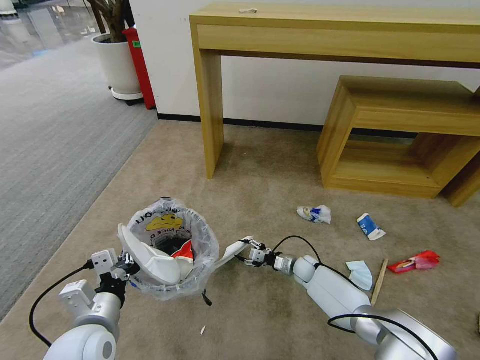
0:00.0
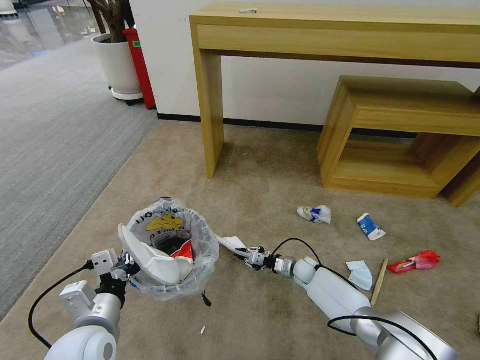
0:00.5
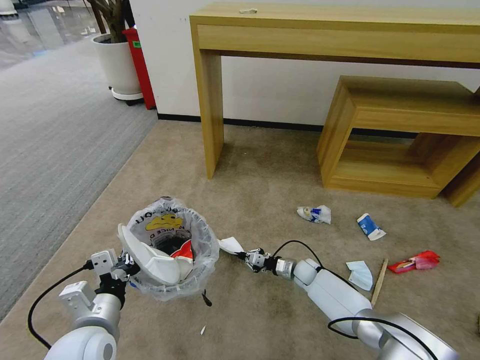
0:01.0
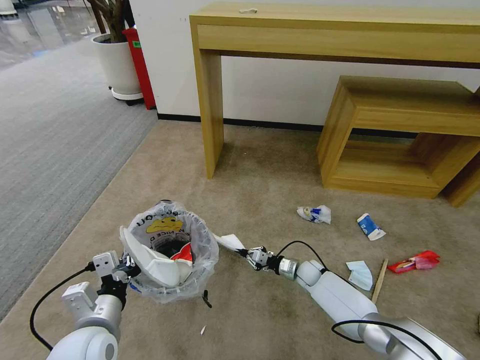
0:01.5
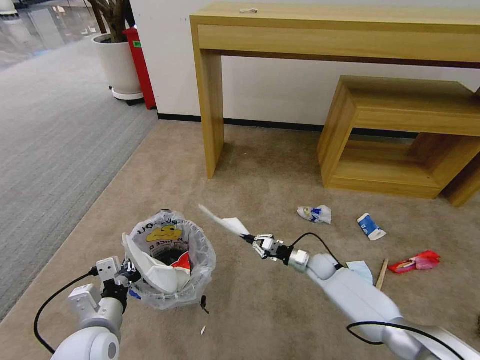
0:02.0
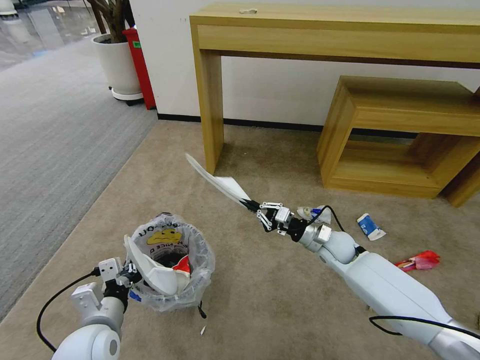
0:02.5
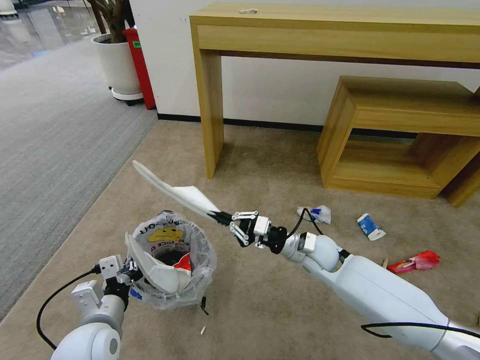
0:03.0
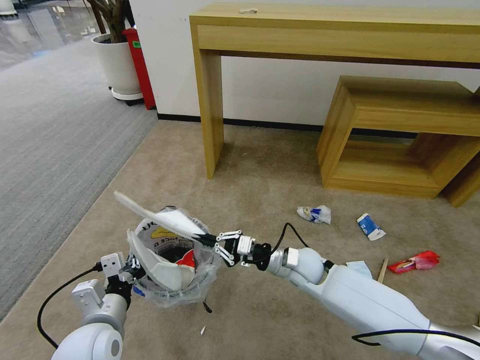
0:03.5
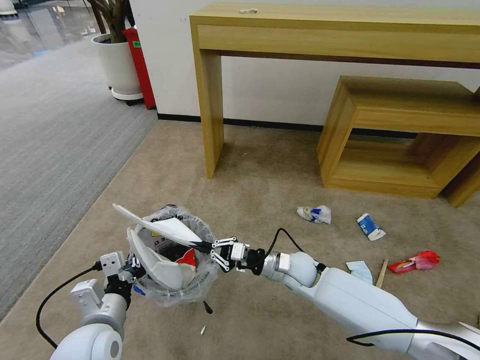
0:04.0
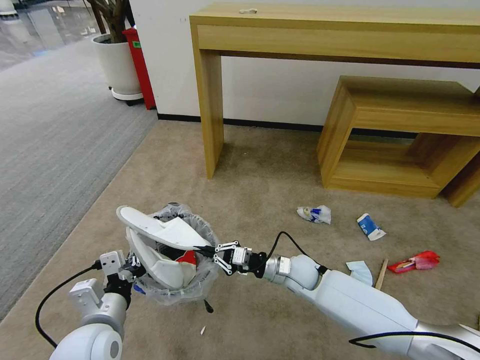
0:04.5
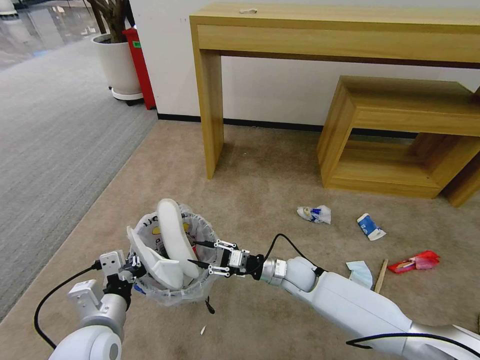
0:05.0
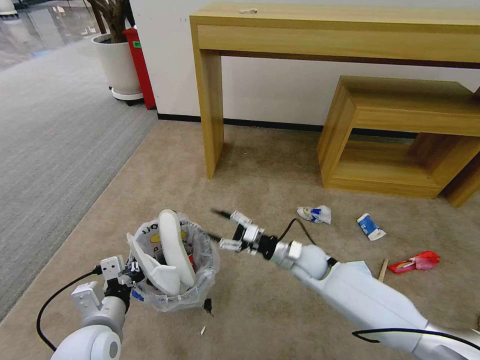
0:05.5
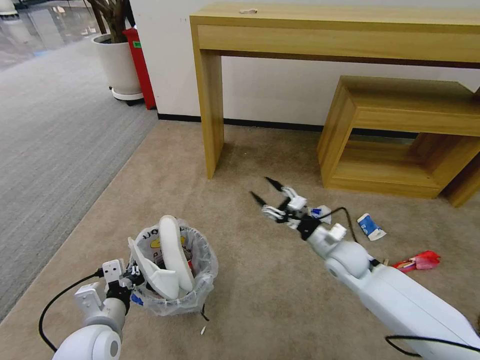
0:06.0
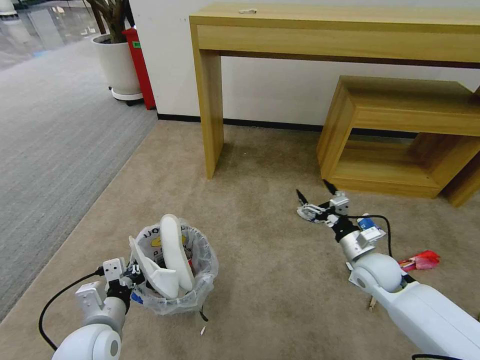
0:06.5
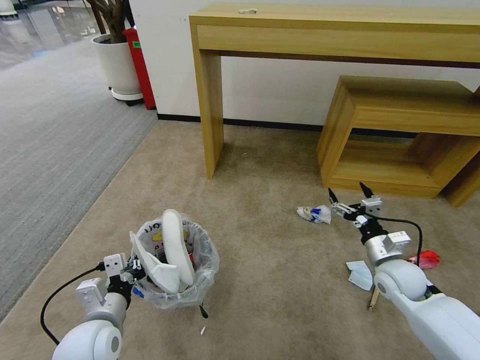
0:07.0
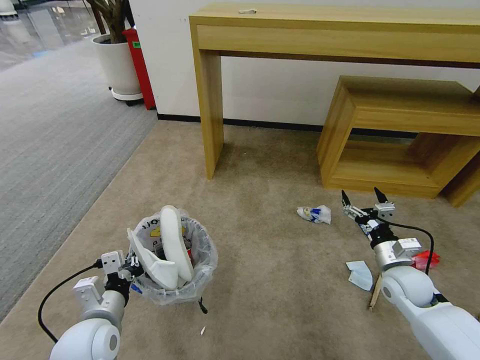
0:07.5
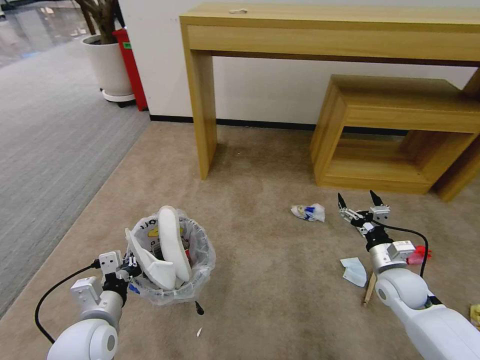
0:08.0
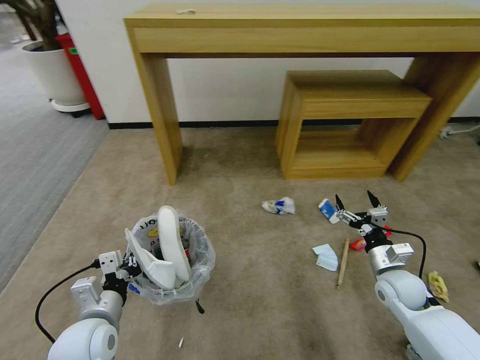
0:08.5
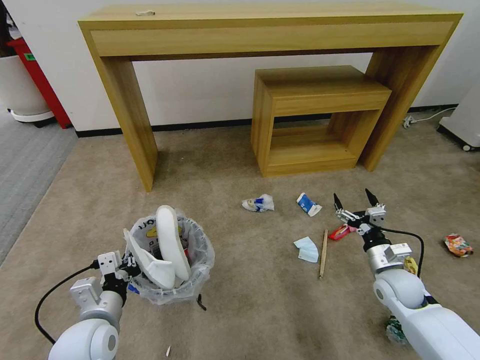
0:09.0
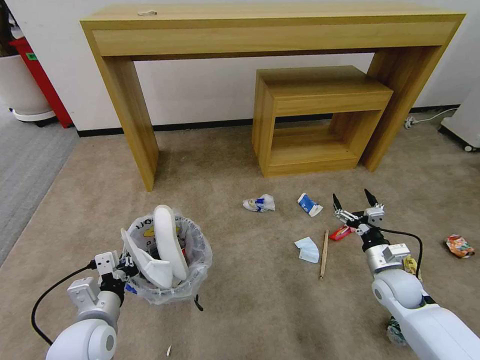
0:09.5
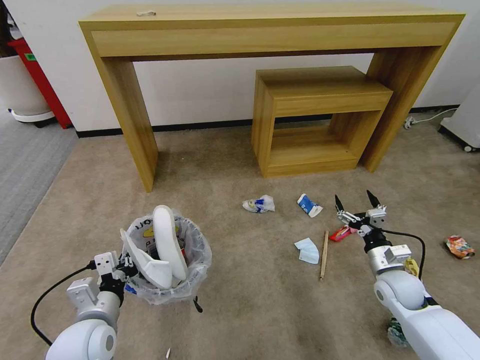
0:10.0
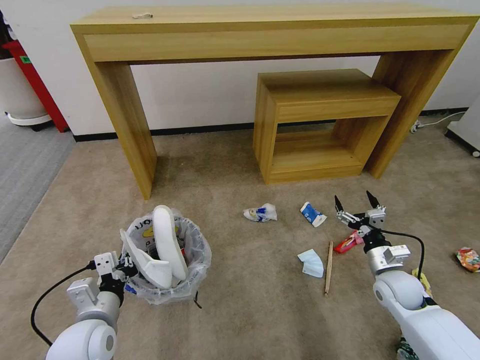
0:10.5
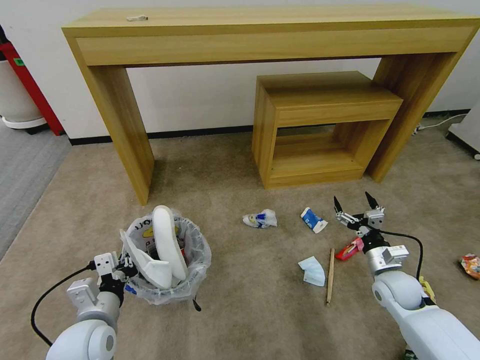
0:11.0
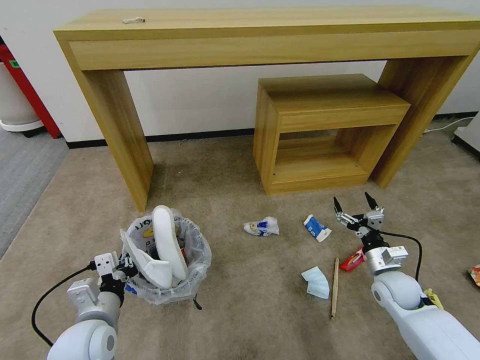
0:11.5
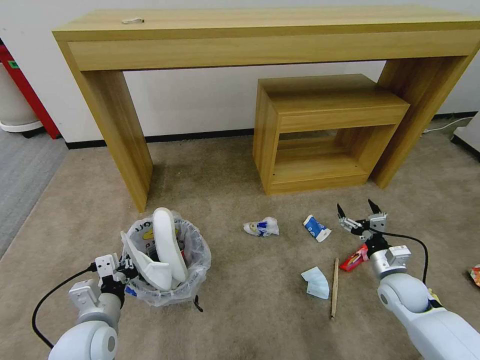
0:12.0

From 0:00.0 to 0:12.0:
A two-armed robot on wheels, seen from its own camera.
Task of the whole recording: Pick up the trash bin and place the garbage on the floor into it.
From 0:00.0 to 0:02.0: The right gripper ends up roughly 5 cm from where it was, and closes.
From 0:02.0 to 0:04.0: The right gripper goes approximately 15 cm to the left, upward and backward.
From 0:04.0 to 0:06.0: The right gripper heads to the right, covering some 10 cm, and opens up.
From 0:06.0 to 0:08.0: The right gripper moves to the right and backward, some 10 cm.

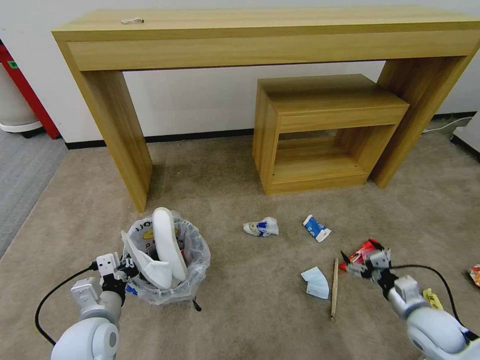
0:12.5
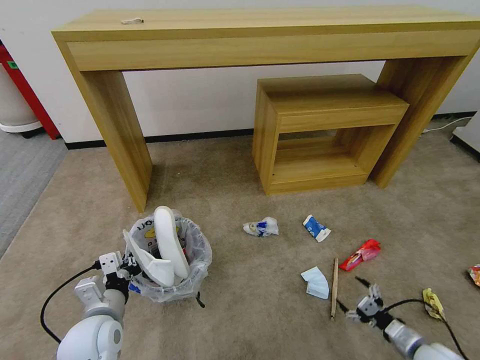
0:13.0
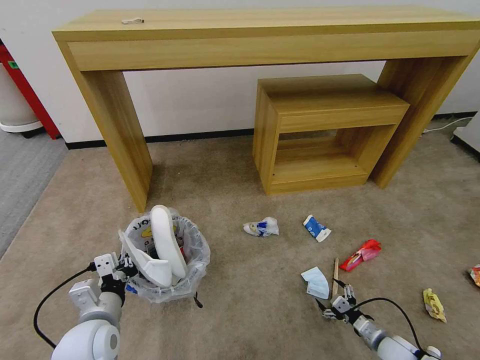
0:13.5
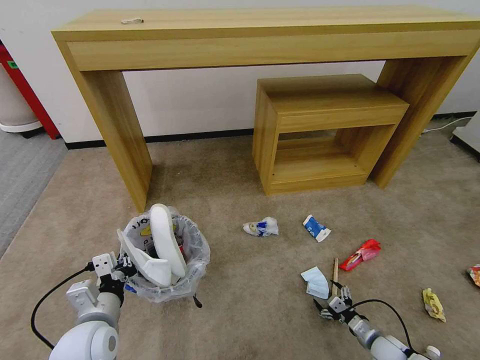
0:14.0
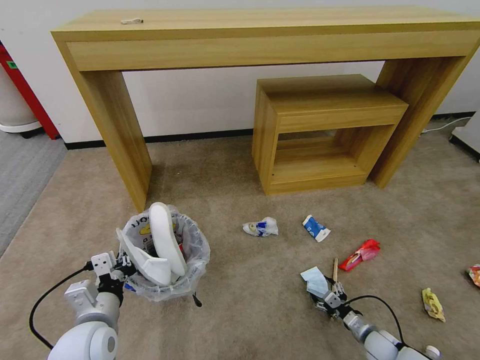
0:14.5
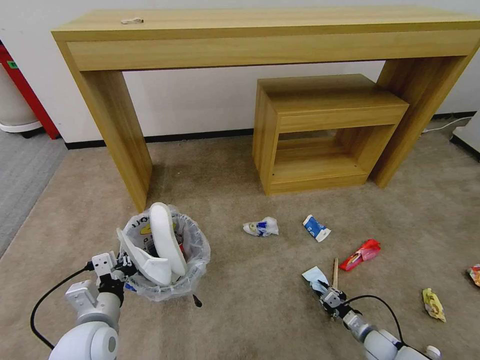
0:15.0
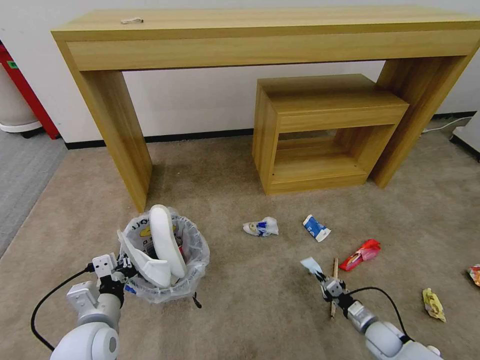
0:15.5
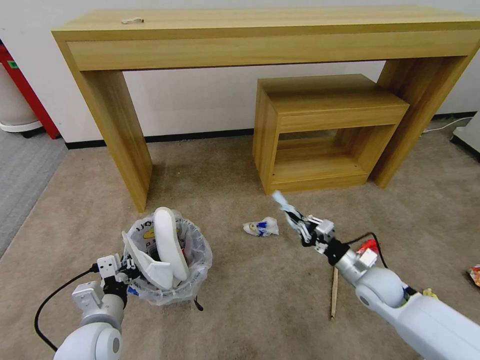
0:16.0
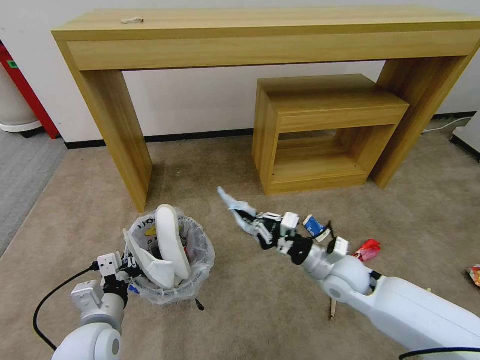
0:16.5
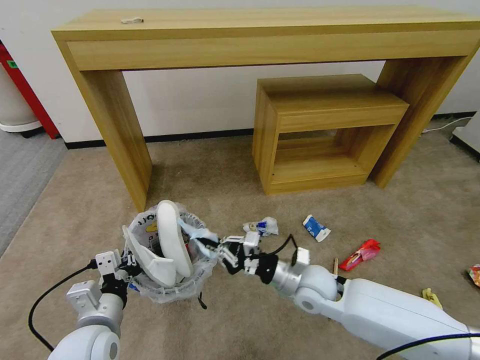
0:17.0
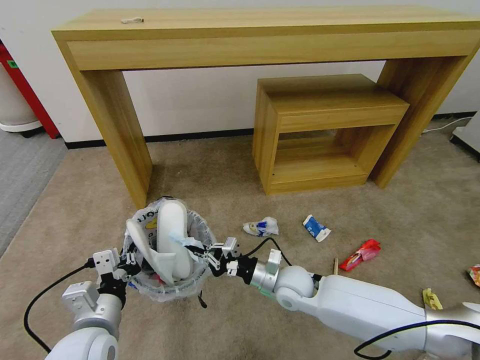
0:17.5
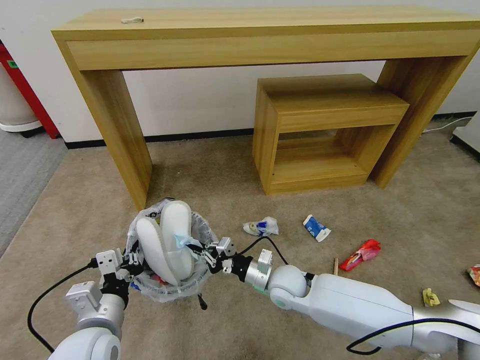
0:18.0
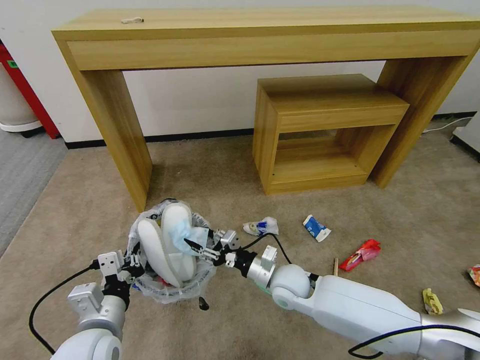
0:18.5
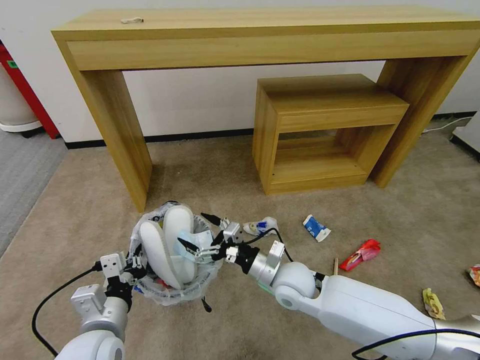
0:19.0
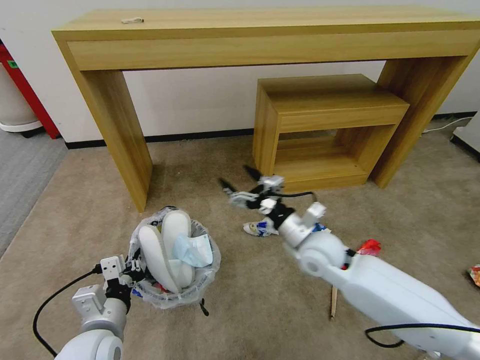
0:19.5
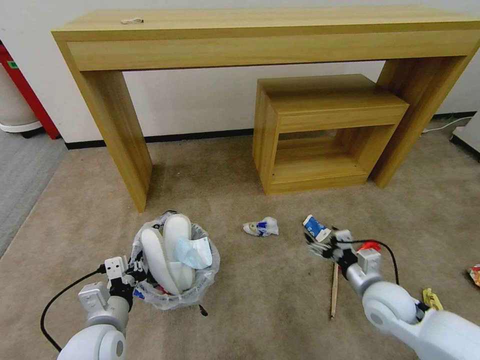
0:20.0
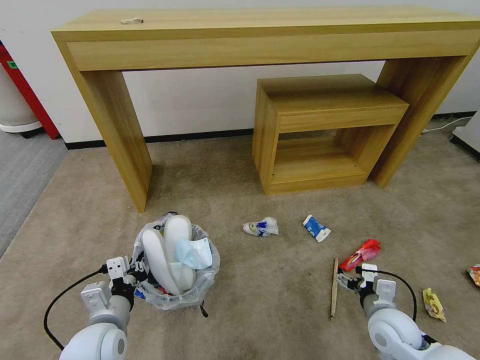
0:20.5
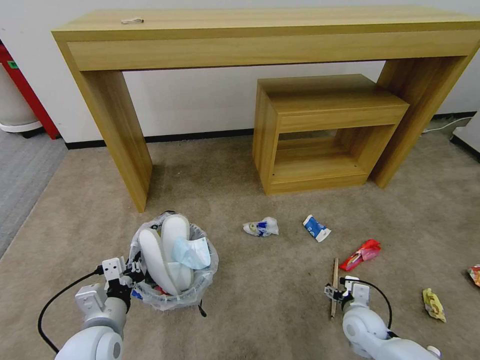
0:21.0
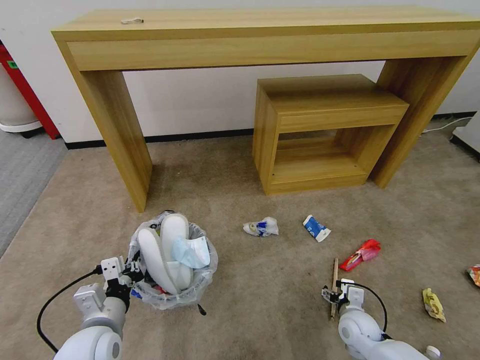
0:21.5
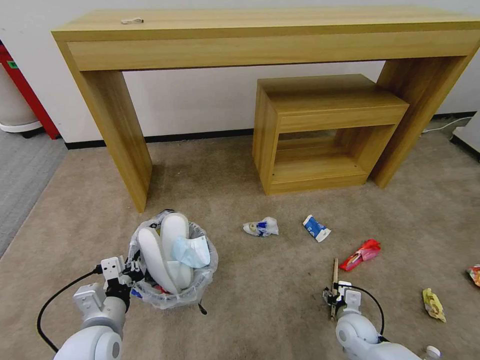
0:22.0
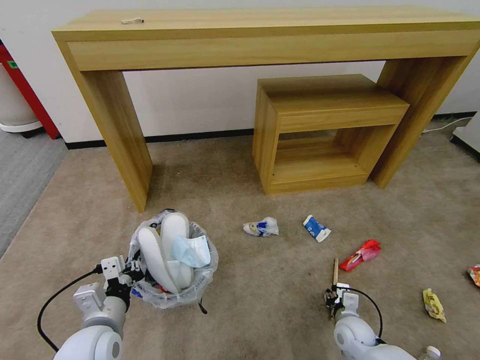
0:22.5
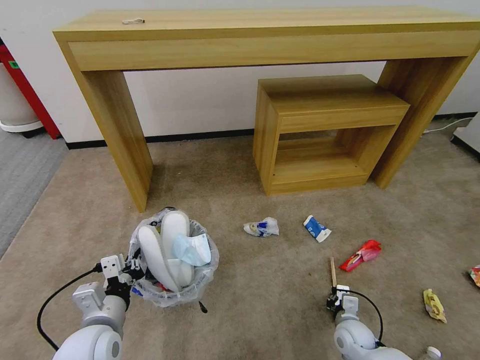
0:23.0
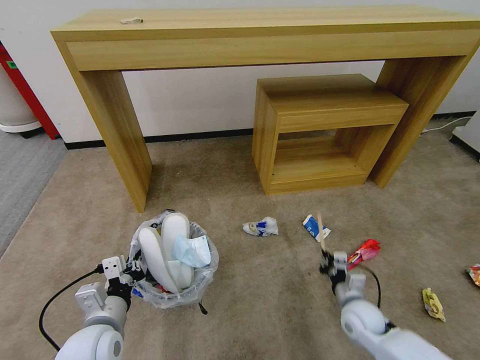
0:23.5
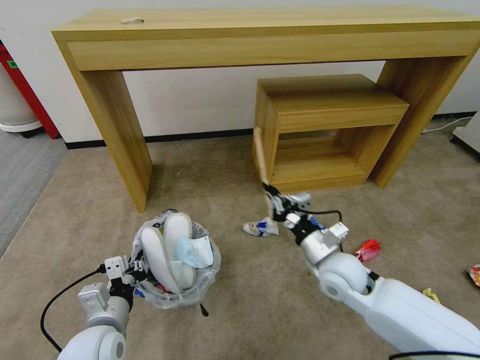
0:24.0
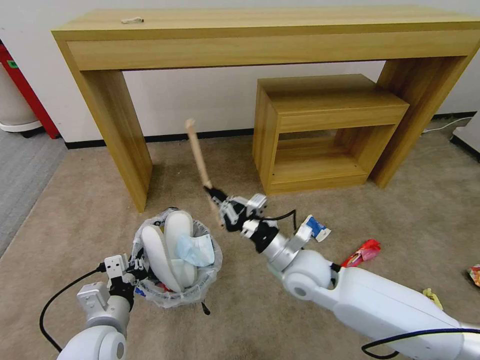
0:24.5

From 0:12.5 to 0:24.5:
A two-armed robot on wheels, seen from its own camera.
Task of the whole recording: Pick up the trash bin and place the garbage on the floor into it.
From 0:12.5 to 0:14.5: The right gripper is displaced downward by some 20 cm.
From 0:14.5 to 0:16.5: The right gripper goes approximately 30 cm upward and to the left, and closes.
From 0:16.5 to 0:18.5: The right gripper goes some 10 cm to the left and downward, and opens up.
From 0:18.5 to 0:20.5: The right gripper goes some 25 cm to the right and backward, and opens its fingers.
From 0:20.5 to 0:22.5: The right gripper moves downward, roughly 15 cm, and closes up.
From 0:22.5 to 0:24.5: The right gripper is displaced upward and to the left by roughly 30 cm, and closes up.

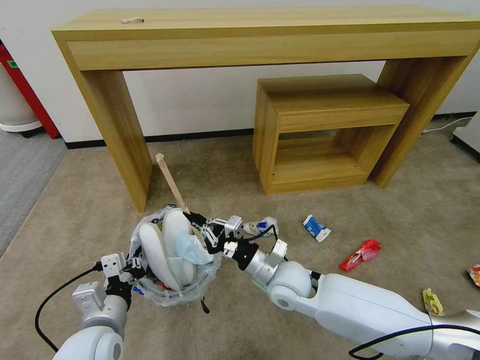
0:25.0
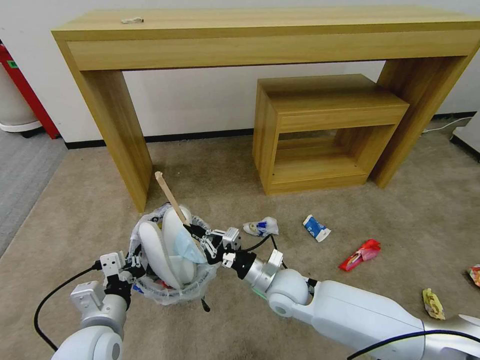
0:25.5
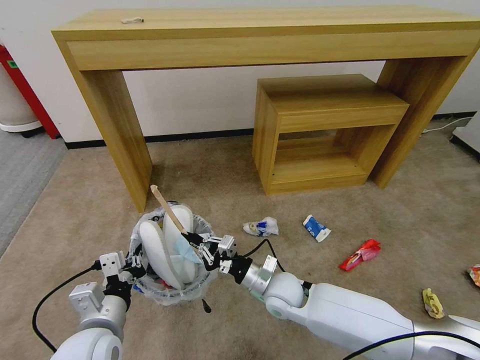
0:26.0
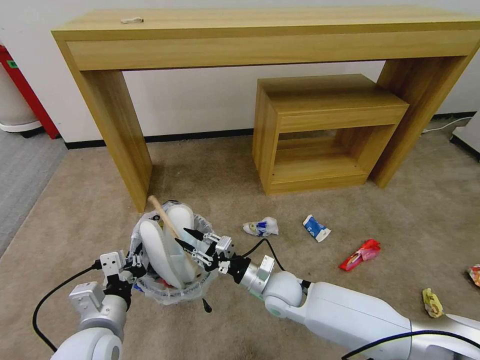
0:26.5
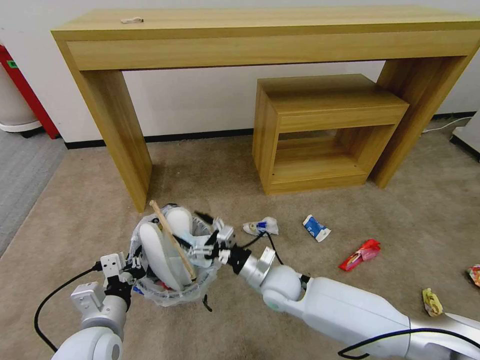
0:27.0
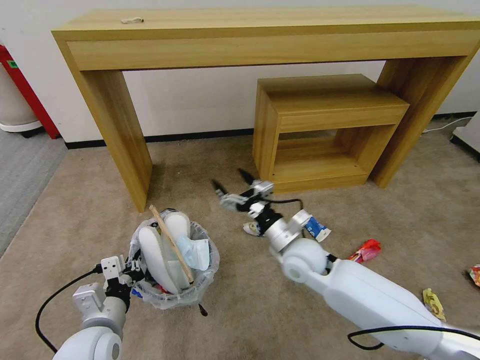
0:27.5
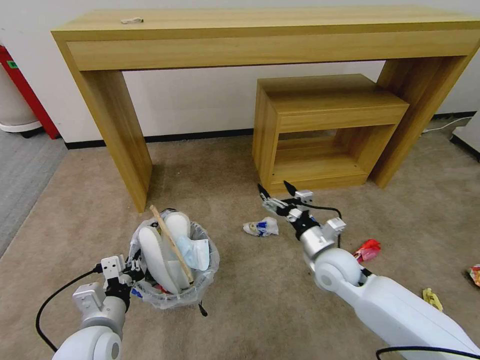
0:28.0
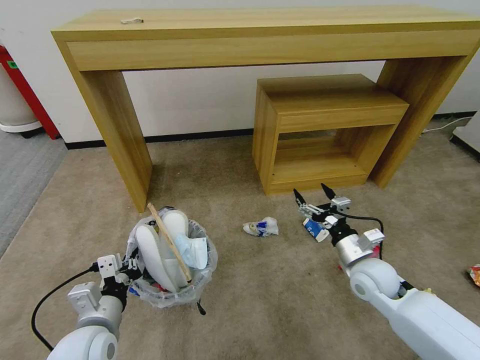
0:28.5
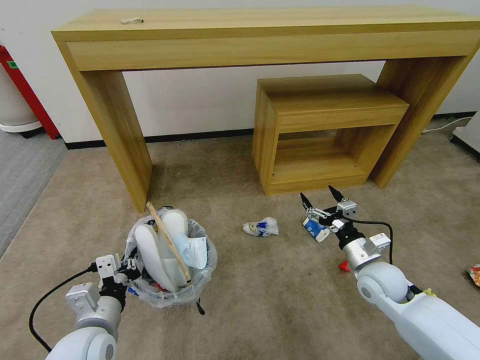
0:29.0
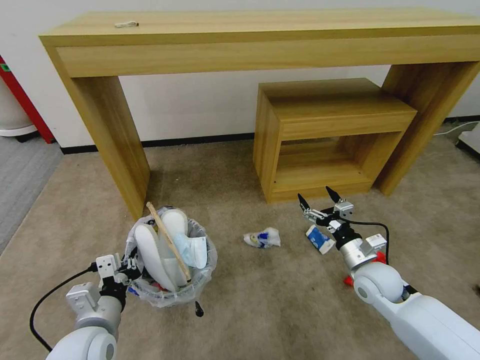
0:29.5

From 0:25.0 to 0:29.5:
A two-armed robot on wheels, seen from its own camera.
Task of the whole recording: Pick up the trash bin and place the garbage on the floor into it.
From 0:25.0 to 0:27.0: The right gripper opens its fingers.
From 0:27.0 to 0:29.5: The right gripper travels to the right by about 20 cm.
